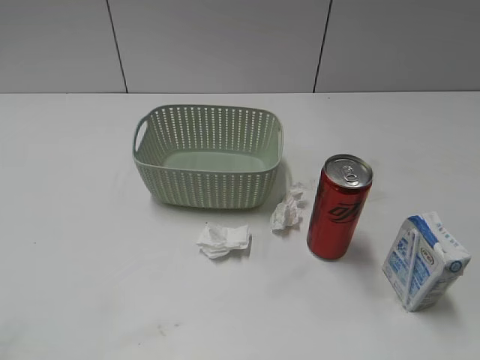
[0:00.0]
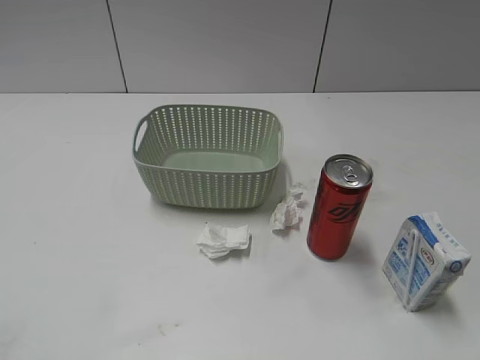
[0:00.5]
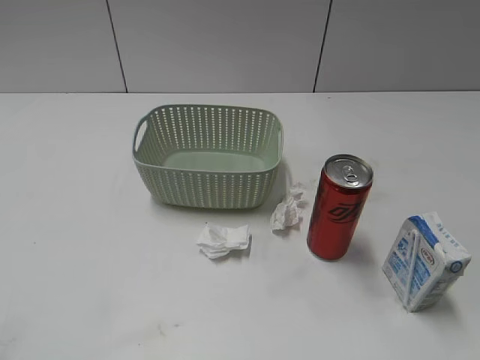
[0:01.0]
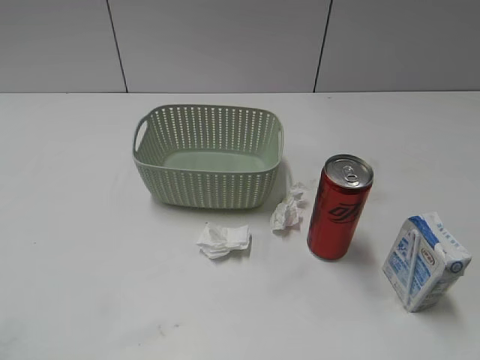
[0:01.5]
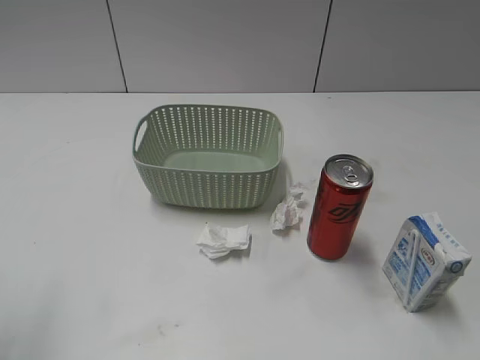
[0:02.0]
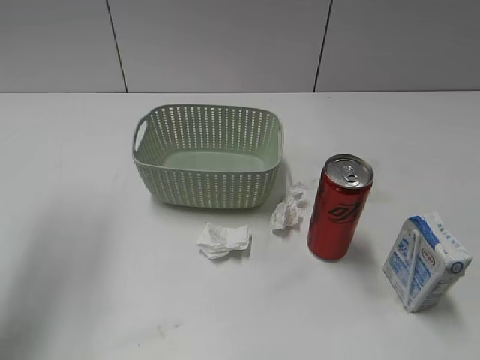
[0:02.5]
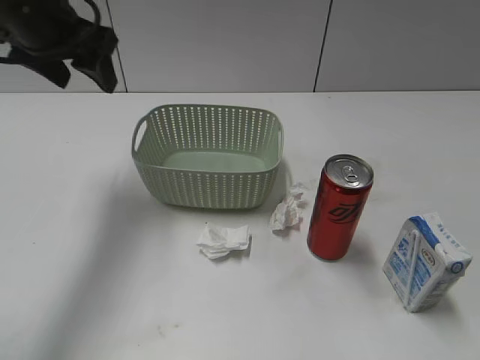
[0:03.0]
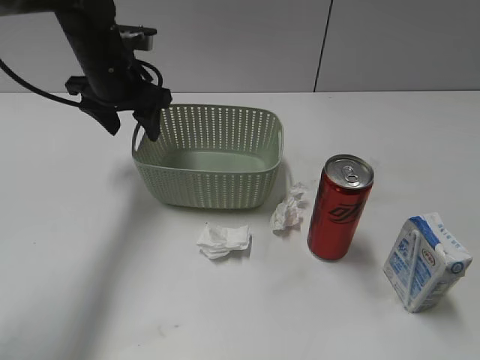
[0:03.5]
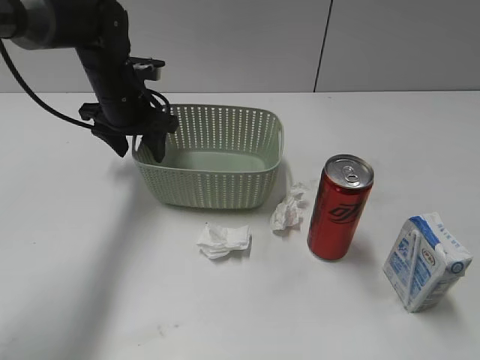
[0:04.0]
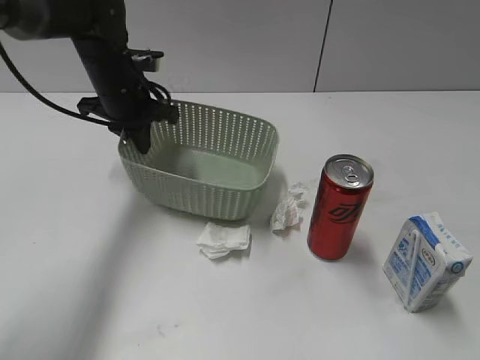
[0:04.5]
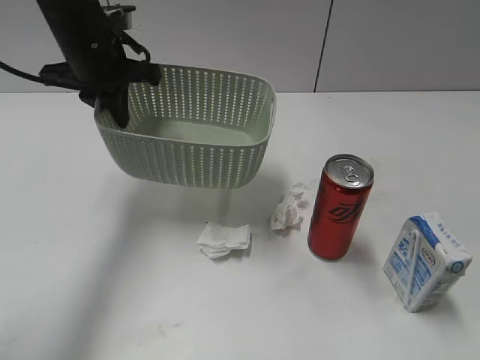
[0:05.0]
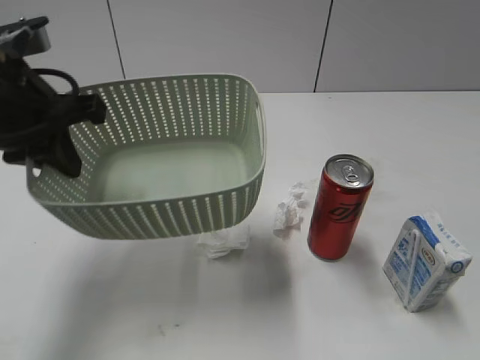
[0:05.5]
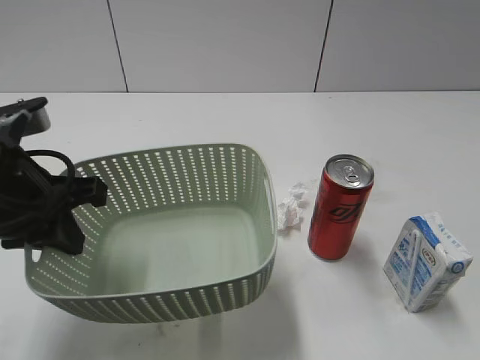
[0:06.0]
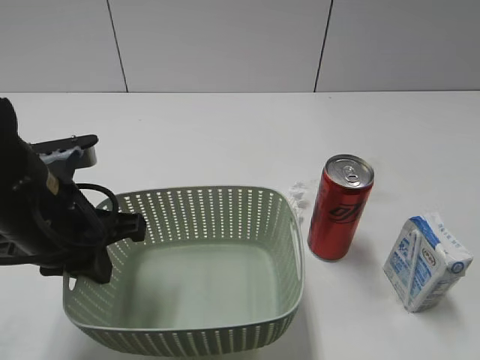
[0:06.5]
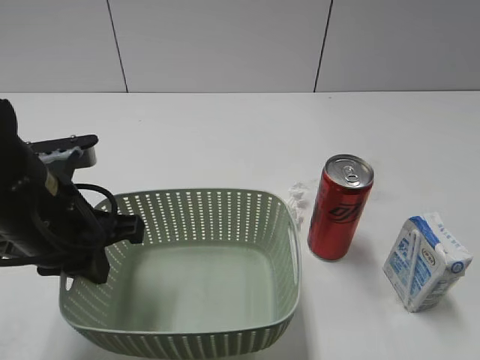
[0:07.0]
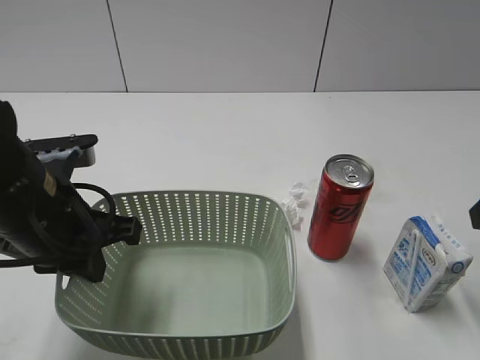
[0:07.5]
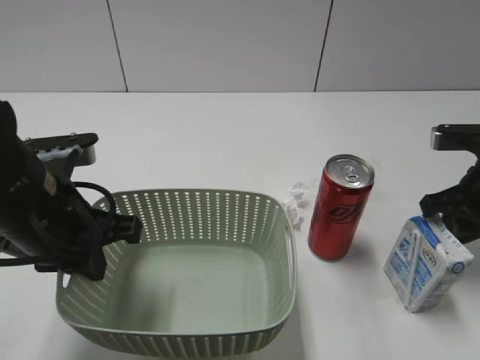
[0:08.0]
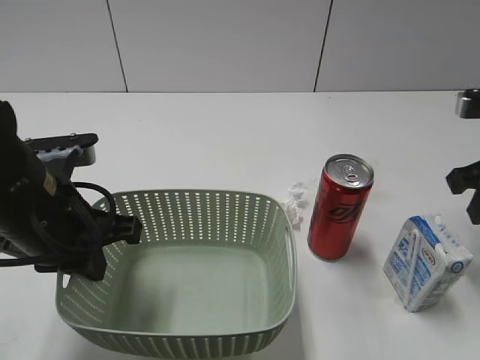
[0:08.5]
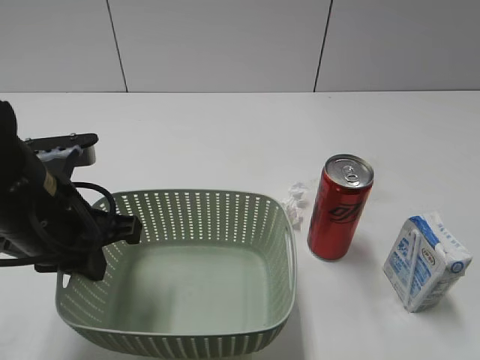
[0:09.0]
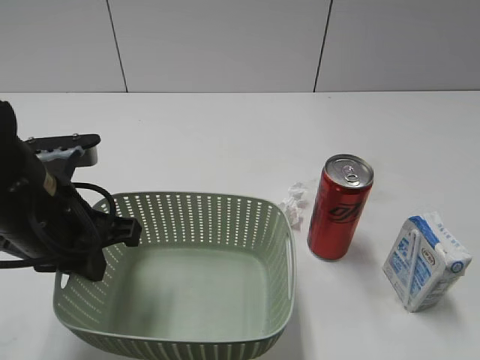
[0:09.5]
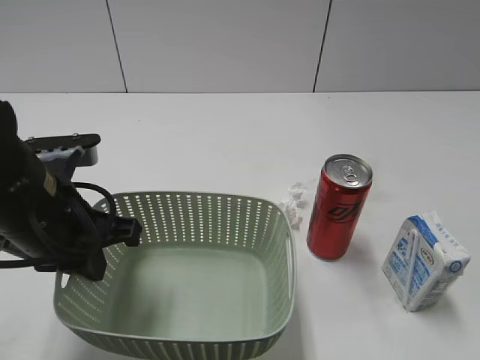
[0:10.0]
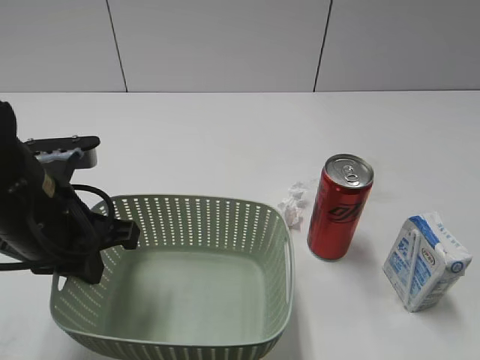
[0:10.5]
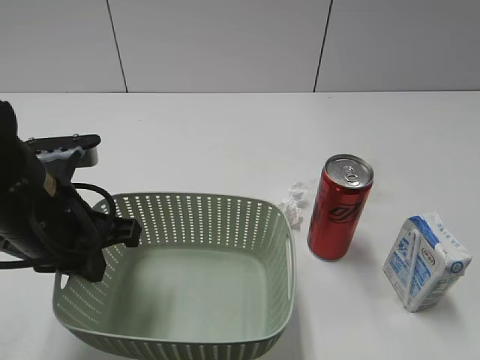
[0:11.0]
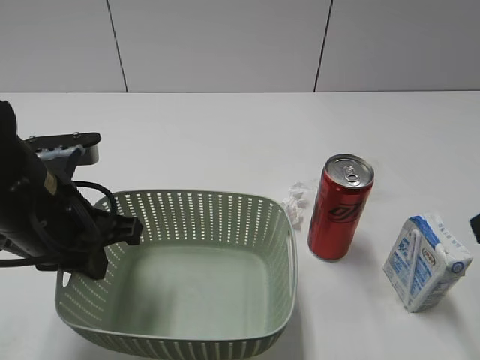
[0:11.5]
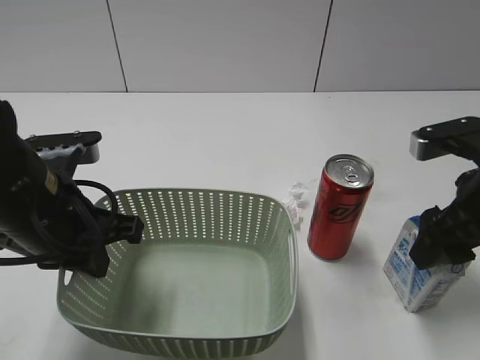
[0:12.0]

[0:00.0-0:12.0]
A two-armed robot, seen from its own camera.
Step, 0:02.5 to 0:04.5: Grasp the basket with left gripper.
Step, 0:05.0 to 0:07.0: Lift the basket with left gripper.
0:02.0 to 0:04.0: The left gripper goes roughly 40 cm forward, downward and to the right.
0:04.0 to 0:06.0: The left gripper heads backward, covering some 25 cm, and closes.
0:06.0 to 0:08.0: The right gripper goes roughly 30 cm forward and downward, and closes up.
0:08.0 to 0:10.0: The right gripper is displaced backward and upward by about 35 cm, and opens its fingers.
0:10.0 to 0:12.0: The right gripper moves forward and downward, roughly 30 cm.

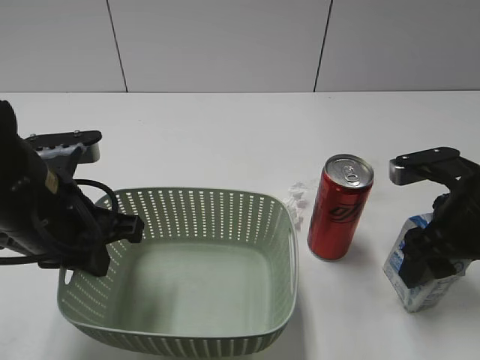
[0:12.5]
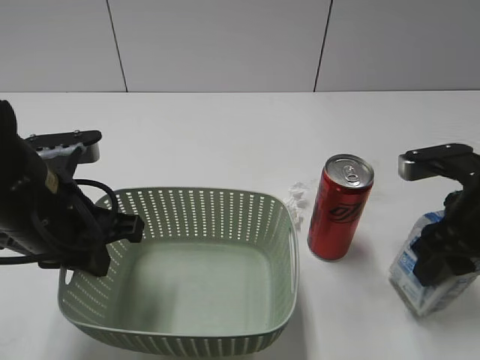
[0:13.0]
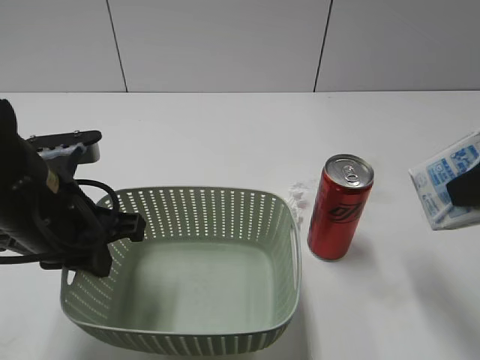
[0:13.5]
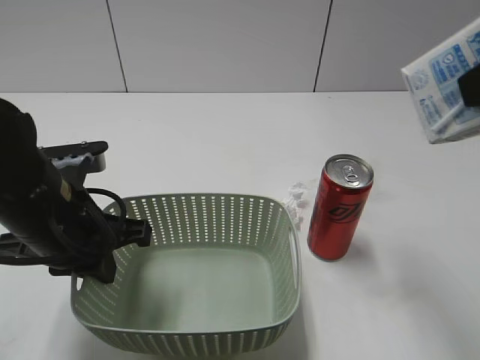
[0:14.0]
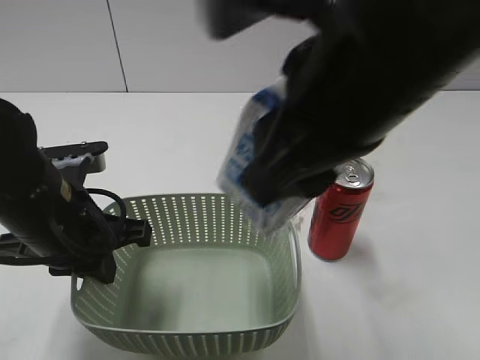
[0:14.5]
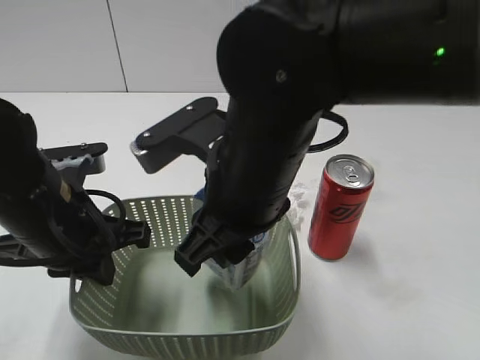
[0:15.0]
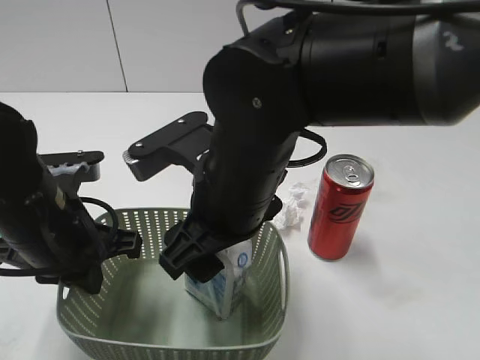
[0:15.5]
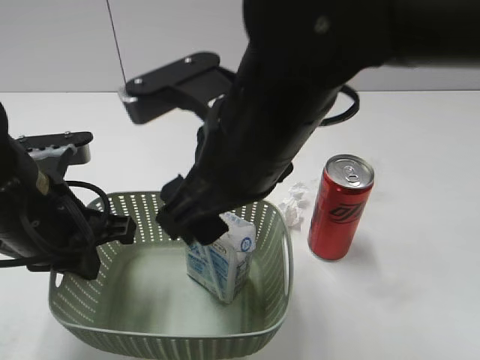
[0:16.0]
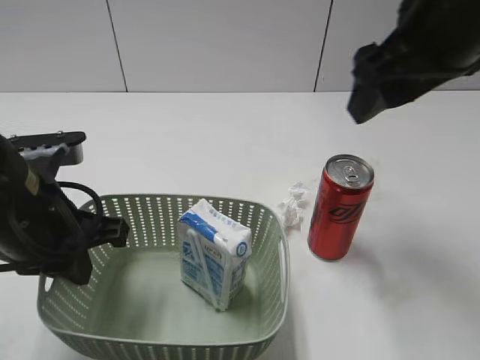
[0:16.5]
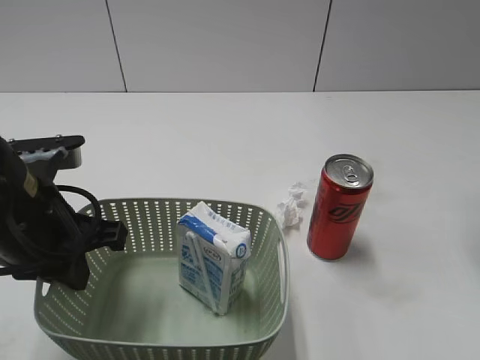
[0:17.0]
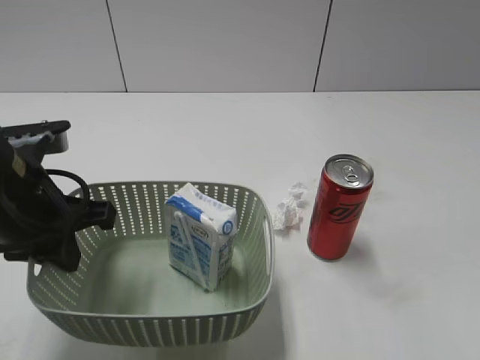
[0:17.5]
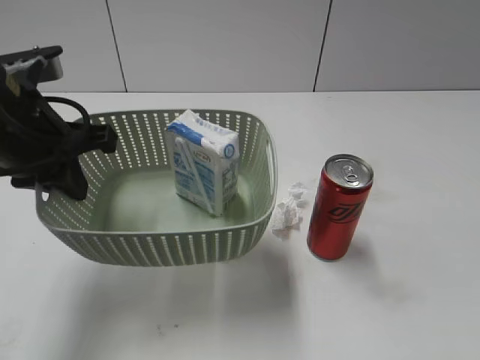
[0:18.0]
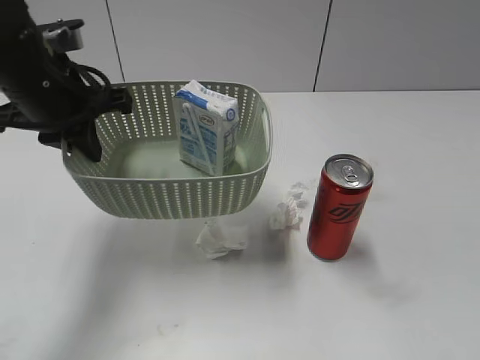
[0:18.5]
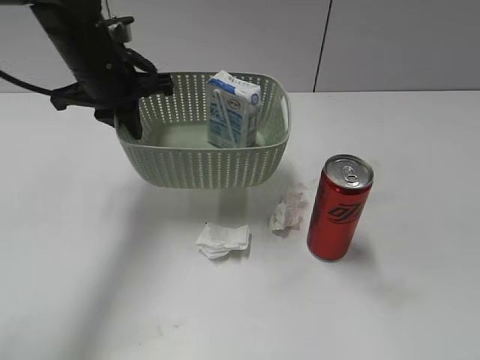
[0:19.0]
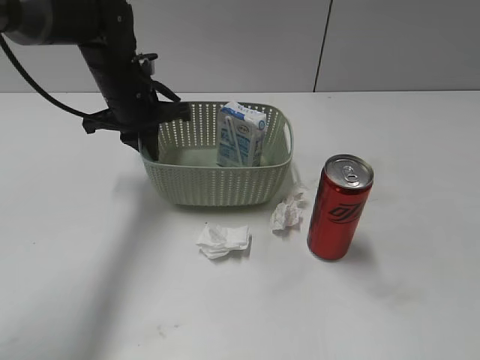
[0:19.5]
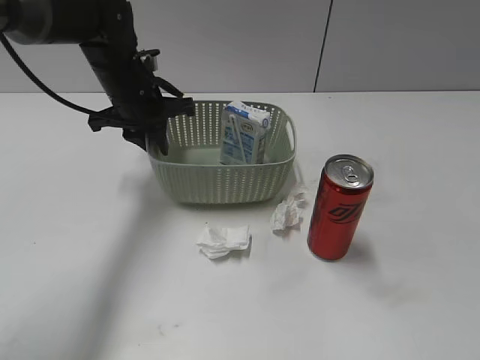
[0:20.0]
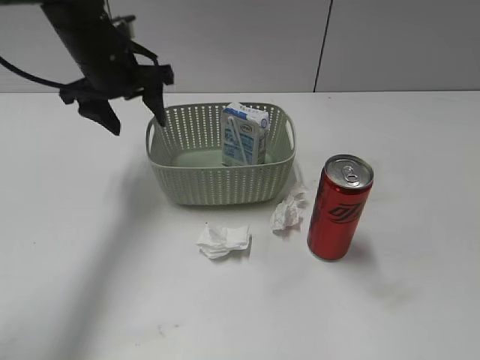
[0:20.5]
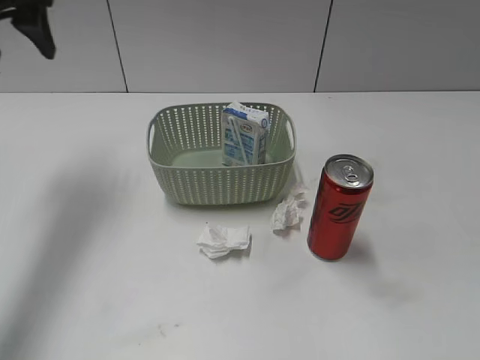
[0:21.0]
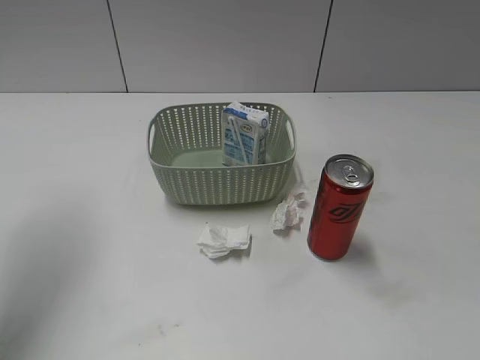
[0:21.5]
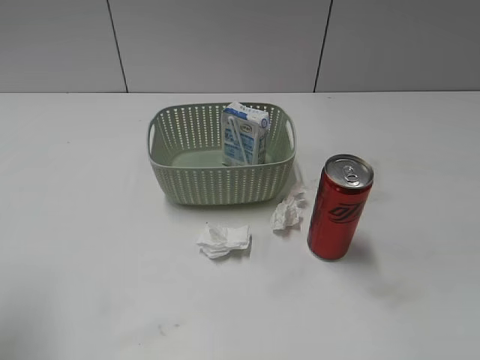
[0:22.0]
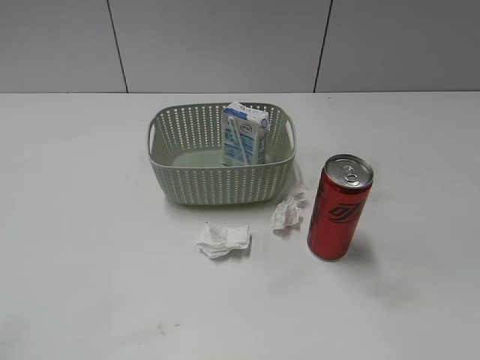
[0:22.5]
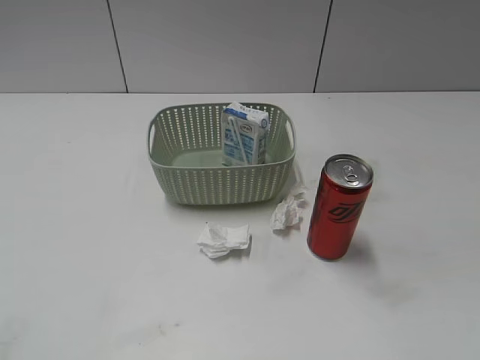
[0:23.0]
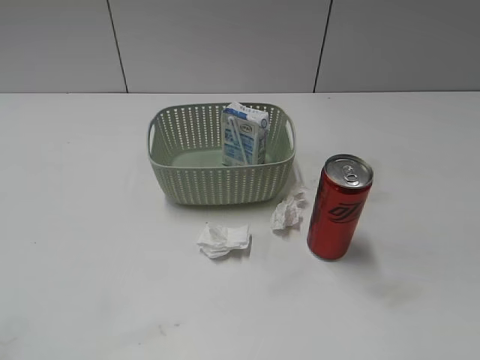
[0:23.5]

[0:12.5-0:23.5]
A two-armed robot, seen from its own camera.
Step, 0:13.0 to 0:16.0: Place the milk in the basket with right gripper.
Step, 0:16.5 to 0:20.0: Place the basket on the table with left gripper.
0:12.5 to 0:14.5: The right gripper heads upward and to the left, covering approximately 25 cm.
0:14.5 to 0:16.0: The right gripper shifts about 10 cm downward and to the left, and opens its fingers.
0:16.0 to 0:18.0: The right gripper travels to the right and backward by approximately 30 cm, while the left gripper goes approximately 5 cm upward.
0:18.0 to 0:20.0: The right gripper shifts approximately 5 cm backward. The left gripper shifts some 20 cm forward and downward.
0:20.0 to 0:21.5: The left gripper is displaced upward, to the left and backward by roughly 30 cm, and opens.
0:21.5 to 0:23.5: The left gripper heads backward, covering some 30 cm.

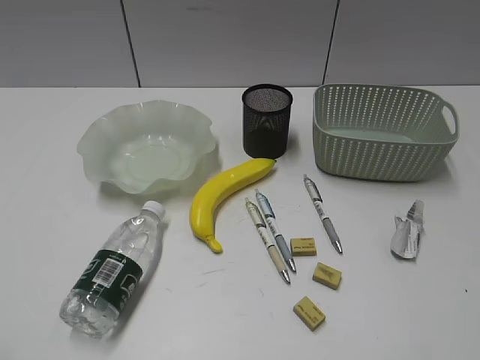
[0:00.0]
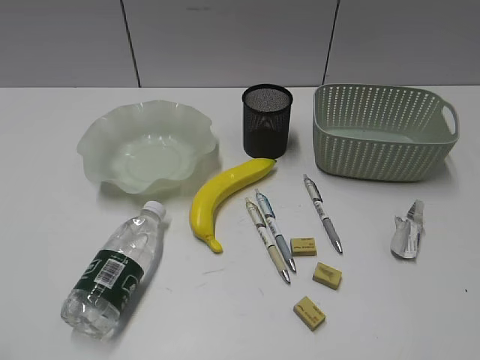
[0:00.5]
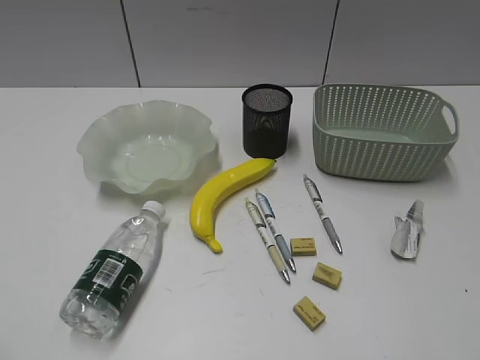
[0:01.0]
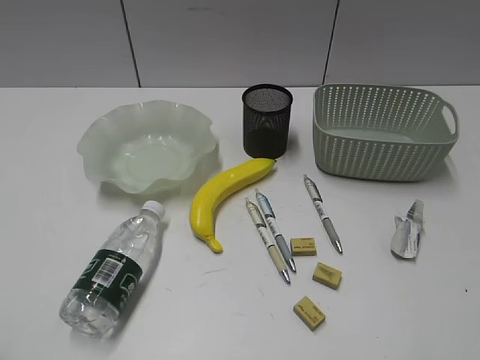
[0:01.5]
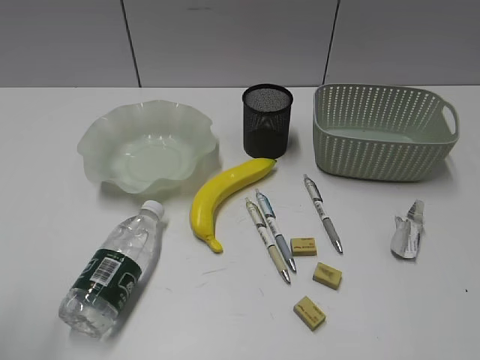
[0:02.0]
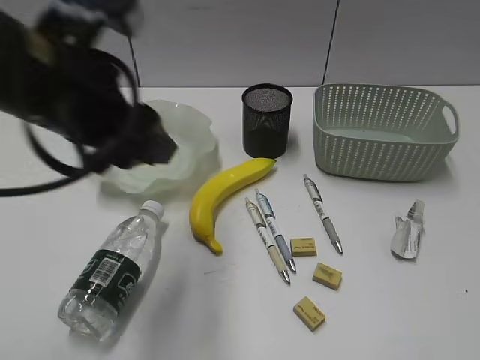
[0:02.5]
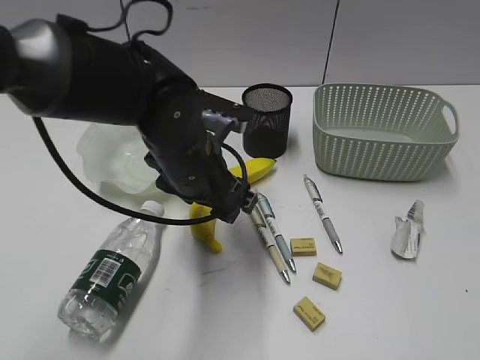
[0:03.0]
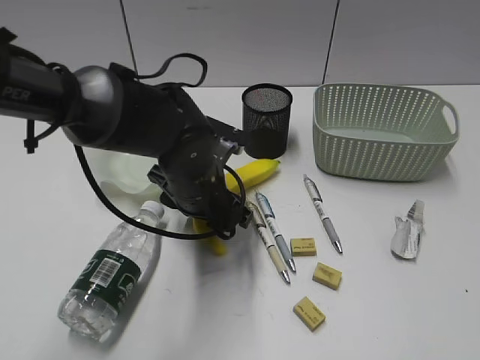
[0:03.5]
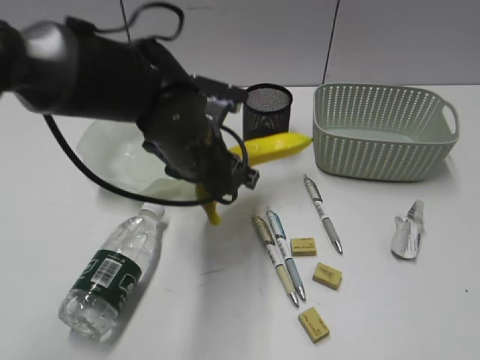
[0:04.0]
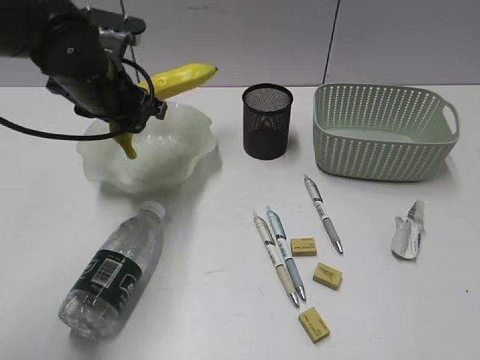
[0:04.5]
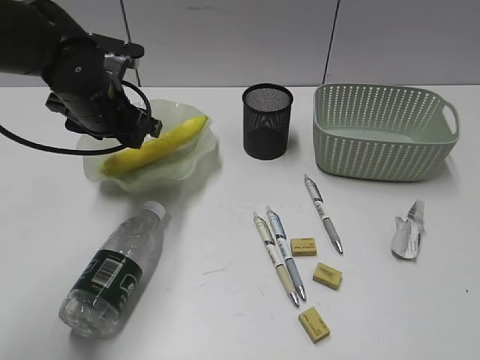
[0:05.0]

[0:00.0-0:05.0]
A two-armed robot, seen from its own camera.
Step, 0:02.0 to 0:03.5: Grasp the banana with left gripper.
Step, 0:04.0 to 0:04.5: Place the banana in the plate with left gripper.
0:02.5 to 0:05.0: The left gripper goes some 15 cm forward and downward.
